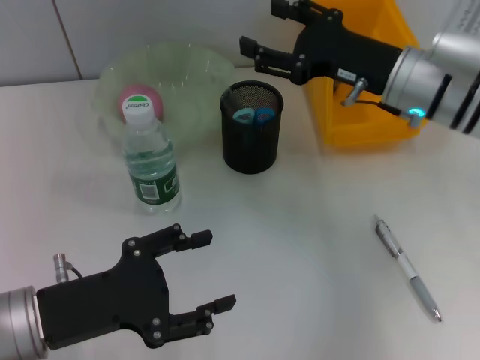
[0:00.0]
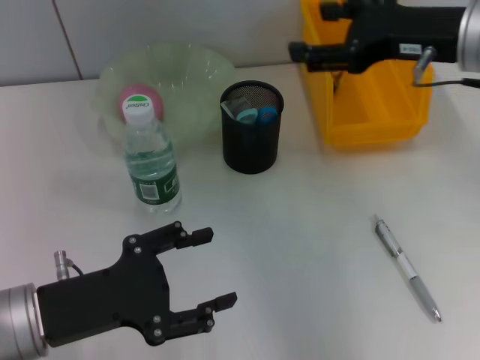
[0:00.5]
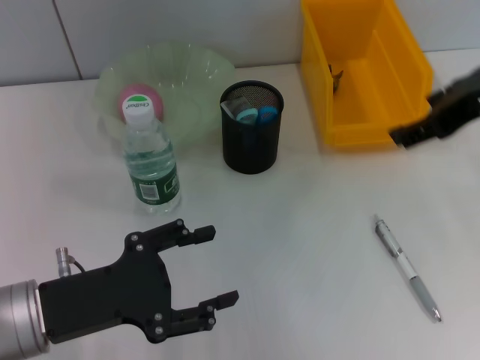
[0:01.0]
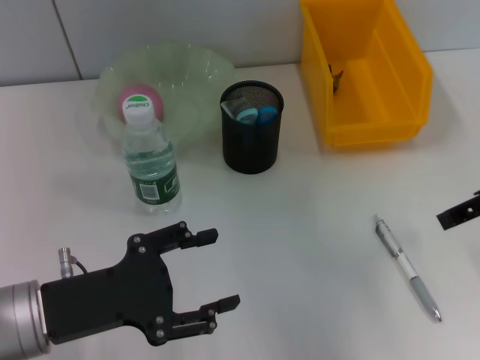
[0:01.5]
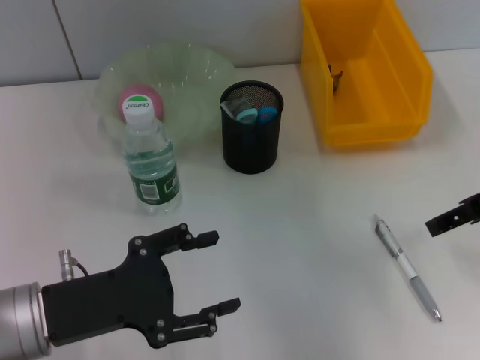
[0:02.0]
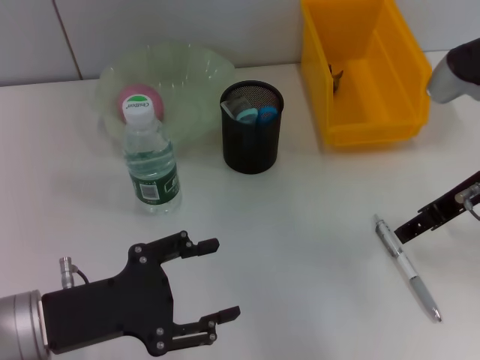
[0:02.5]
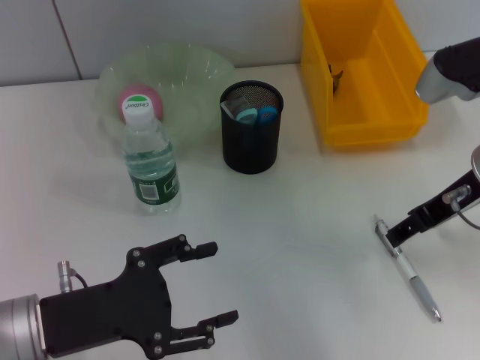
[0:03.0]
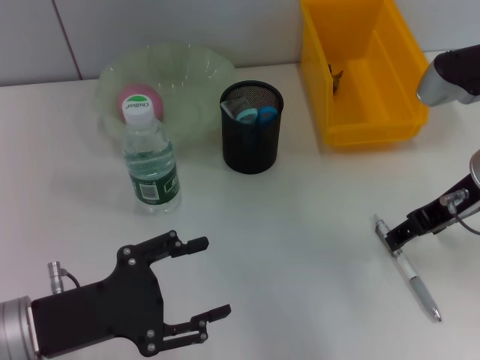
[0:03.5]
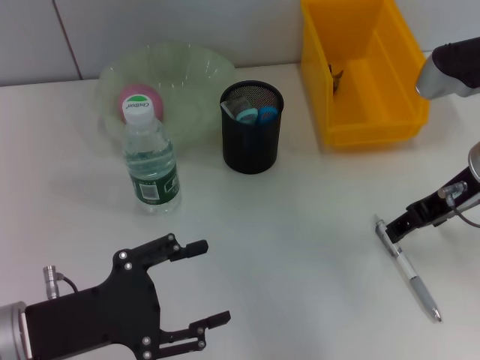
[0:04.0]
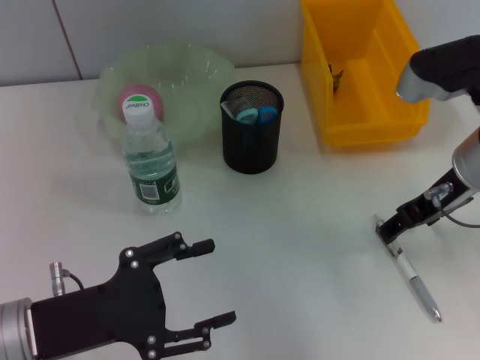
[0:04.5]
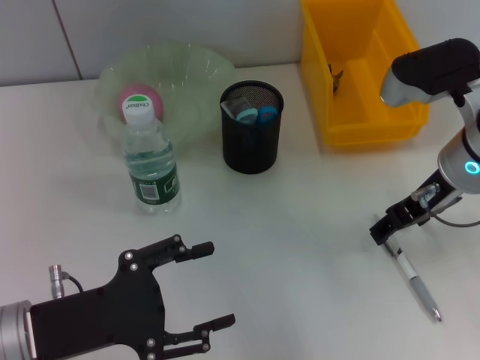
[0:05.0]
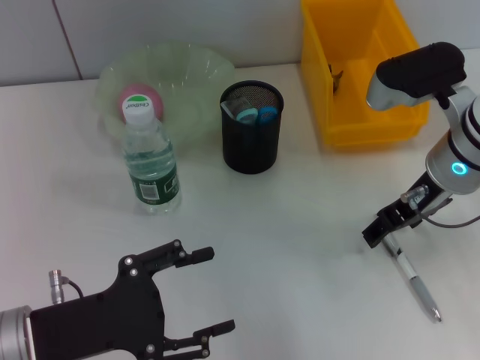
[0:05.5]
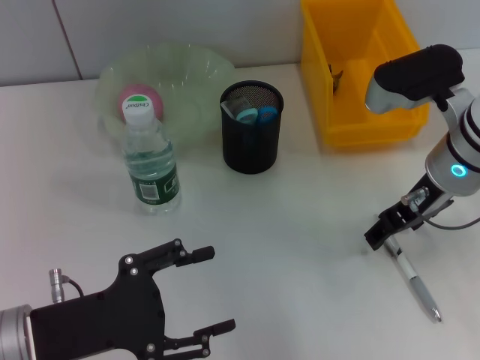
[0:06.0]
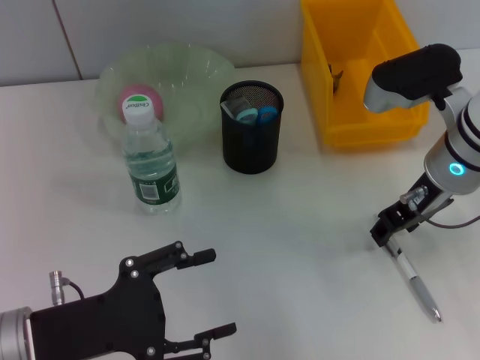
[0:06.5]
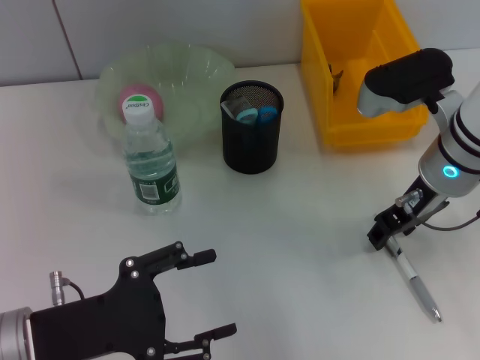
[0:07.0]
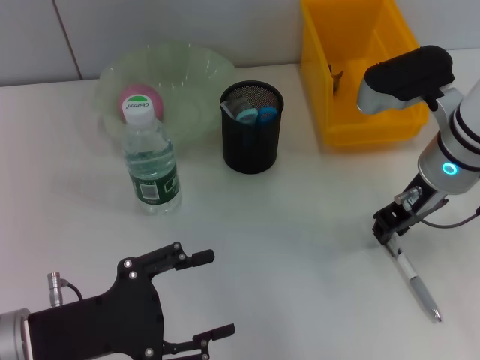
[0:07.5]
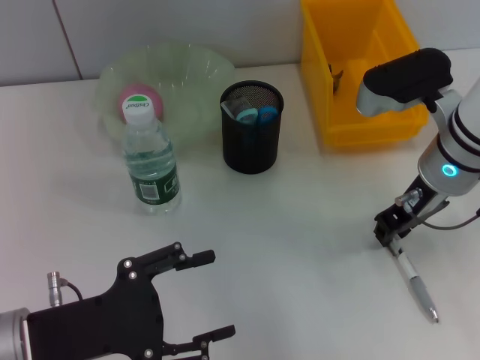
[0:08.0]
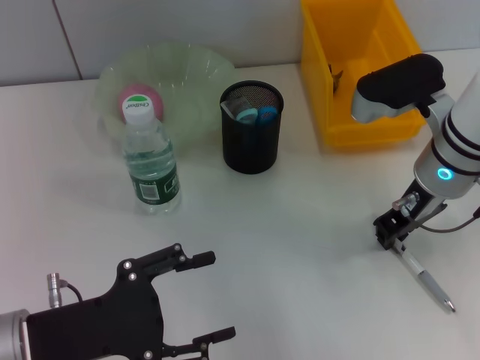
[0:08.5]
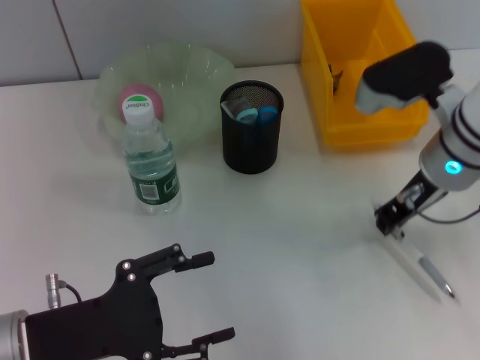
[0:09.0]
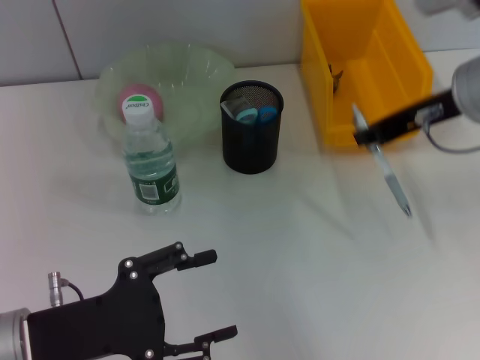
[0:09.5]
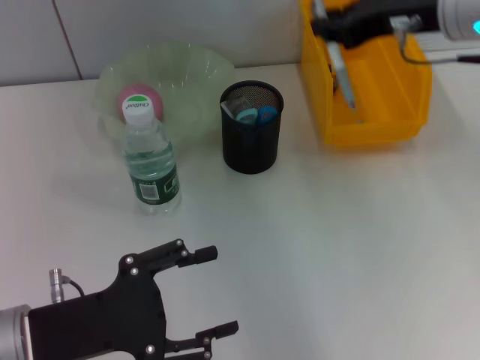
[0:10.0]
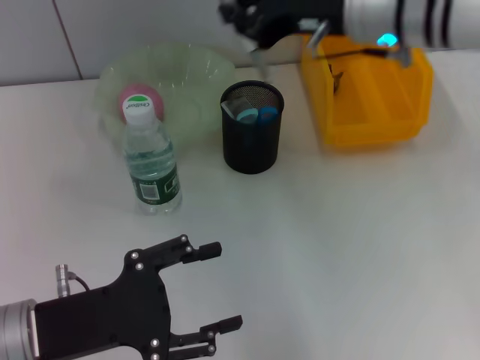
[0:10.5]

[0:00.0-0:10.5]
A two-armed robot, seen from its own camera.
Step, 0:00.5 to 0:08.5: Grab the gray spring-action pen with the right hand.
0:00.0 to 0:02.0: The right gripper is displaced to the right and backward by approximately 10 cm.
0:02.0 to 0:04.0: The right gripper changes place by roughly 5 cm.
0:04.0 to 0:06.5: There are only small adjustments of the grippers.
0:06.5 to 0:08.5: The right gripper closes.
0:08.5 to 0:10.5: The right gripper goes some 10 cm upward.

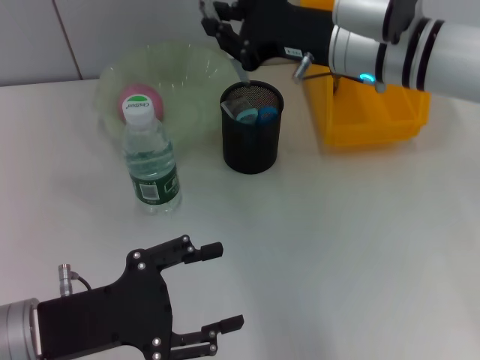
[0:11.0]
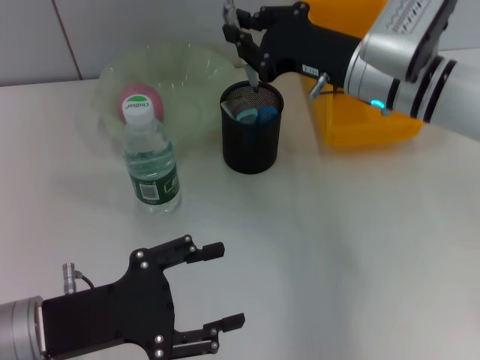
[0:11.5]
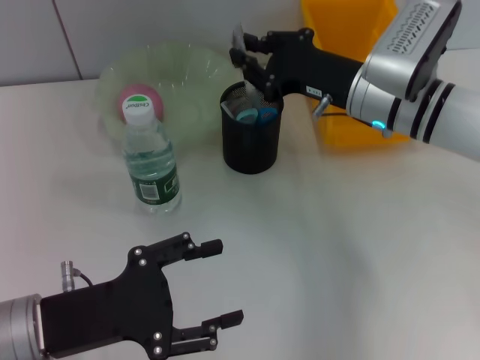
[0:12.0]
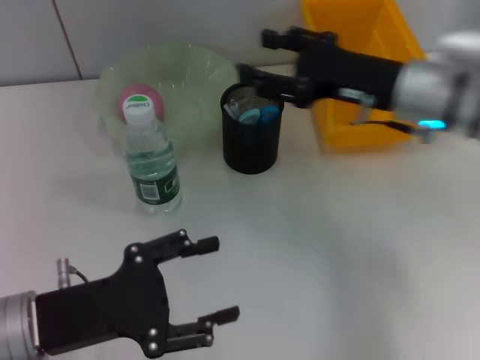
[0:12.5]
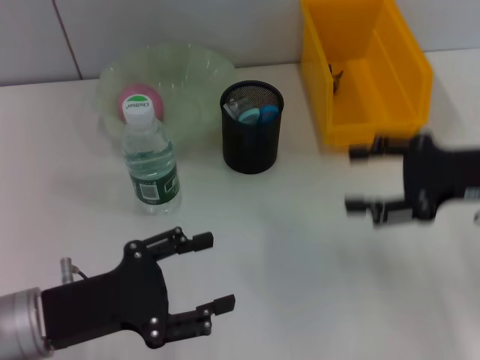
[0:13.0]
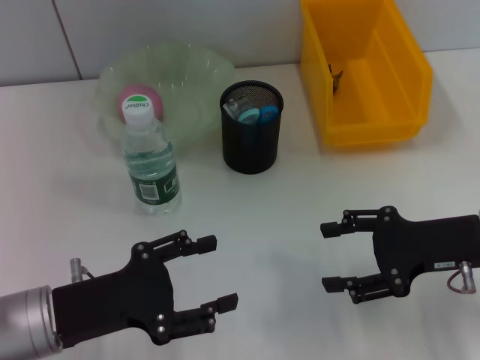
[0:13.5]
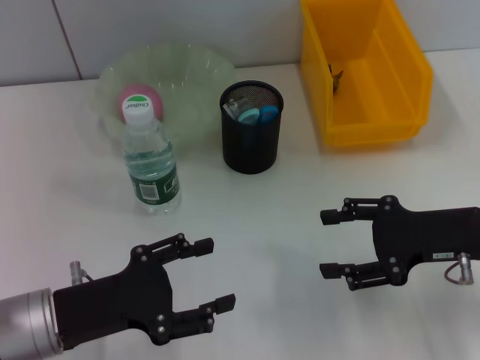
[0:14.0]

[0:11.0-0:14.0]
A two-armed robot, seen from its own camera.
0:11.0 to 0:12.5: The right gripper goes about 5 cm to the right, and opens its fingers.
0:12.5 to 0:14.0: The right gripper goes approximately 15 cm backward, to the right and downward.
